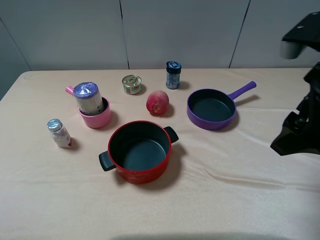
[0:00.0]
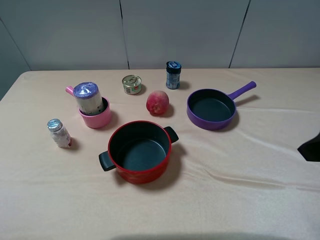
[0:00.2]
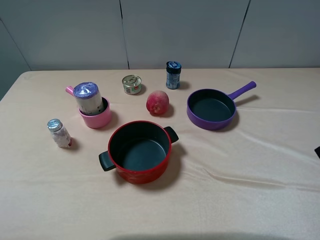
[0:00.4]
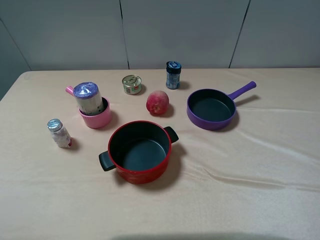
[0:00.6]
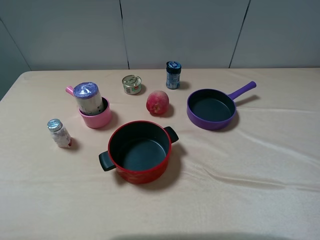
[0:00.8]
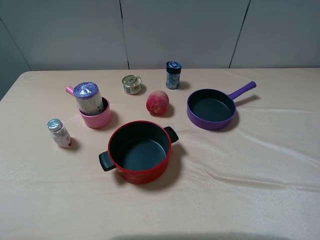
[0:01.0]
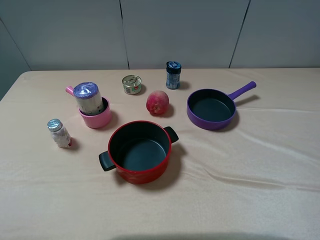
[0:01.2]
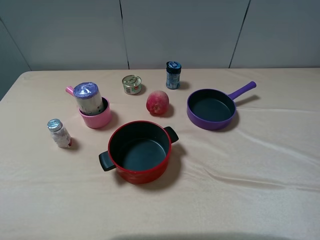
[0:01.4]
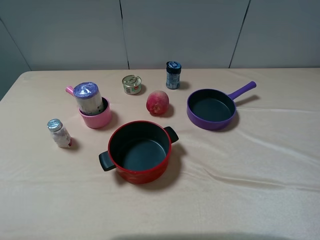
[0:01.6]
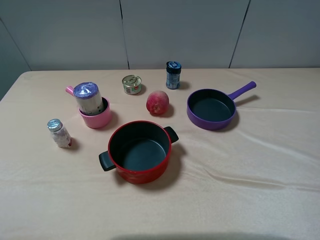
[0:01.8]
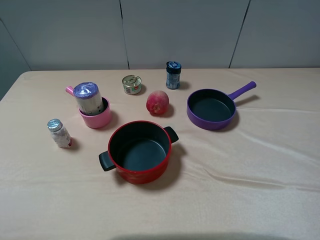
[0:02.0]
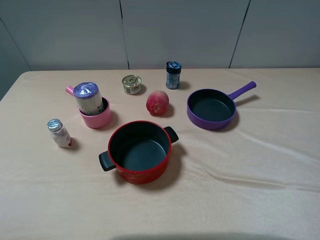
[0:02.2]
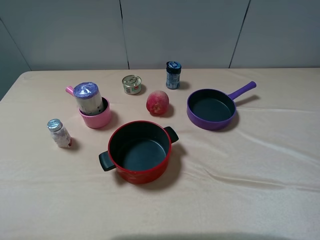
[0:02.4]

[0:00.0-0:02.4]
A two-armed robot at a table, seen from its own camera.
Task of the whole recording: pick up an item with a gripper and place it in a random container on the table.
0:00.0 to 0:01.2: The right gripper shifts roughly 15 cm backward and to the right.
